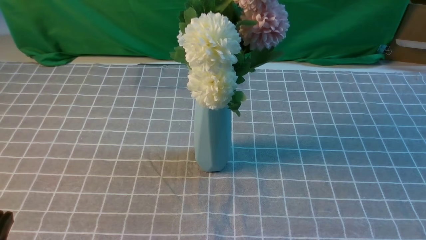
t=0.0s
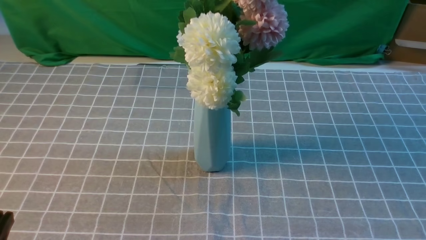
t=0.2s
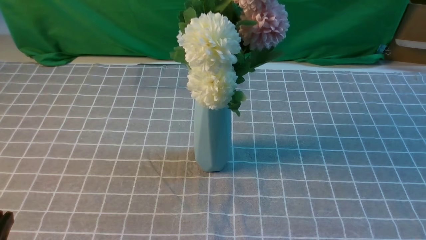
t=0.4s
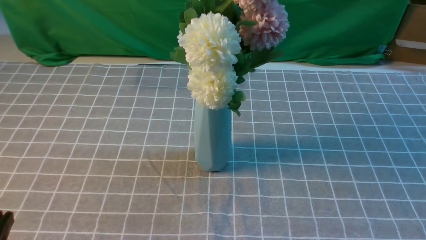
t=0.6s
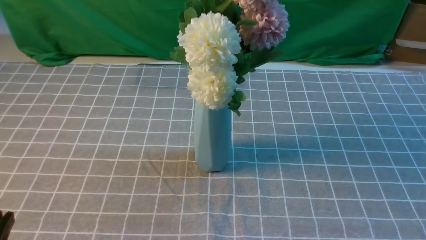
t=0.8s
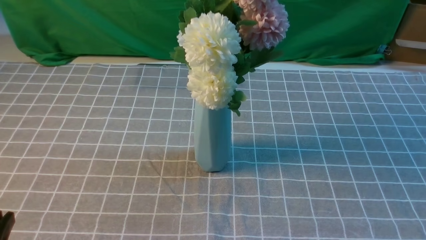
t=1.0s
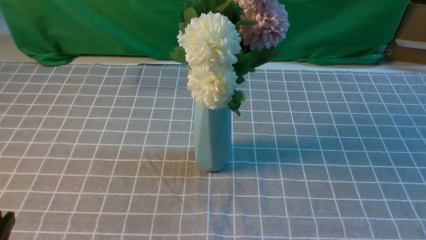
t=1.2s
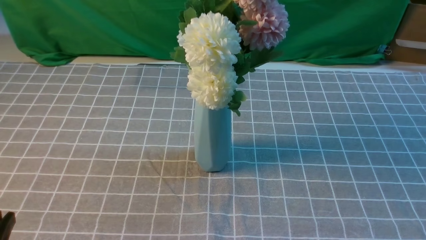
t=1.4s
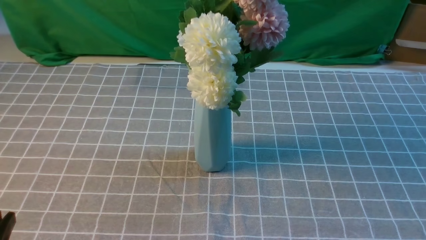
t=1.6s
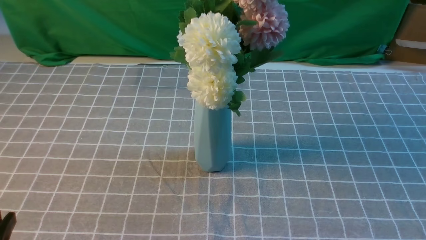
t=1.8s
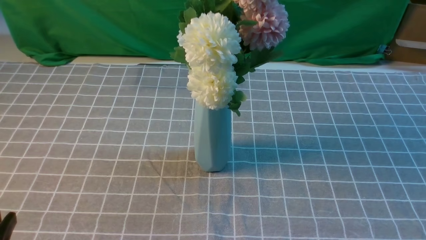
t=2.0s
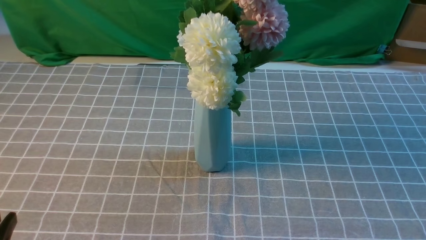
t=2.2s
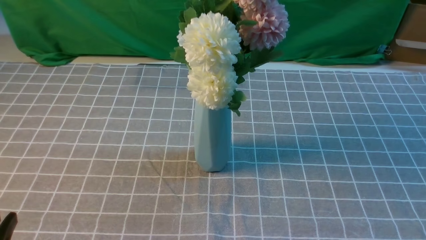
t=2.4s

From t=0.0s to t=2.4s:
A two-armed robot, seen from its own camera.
Task of the whole recording: insert the flowers into the vase on the table with the grey tablecloth.
From t=1.2s to t=2.4s: The two grippers keep their place.
